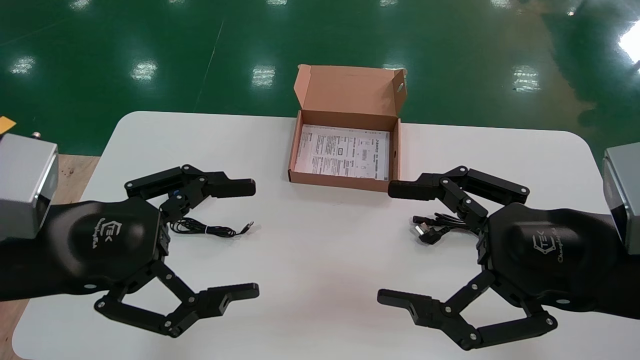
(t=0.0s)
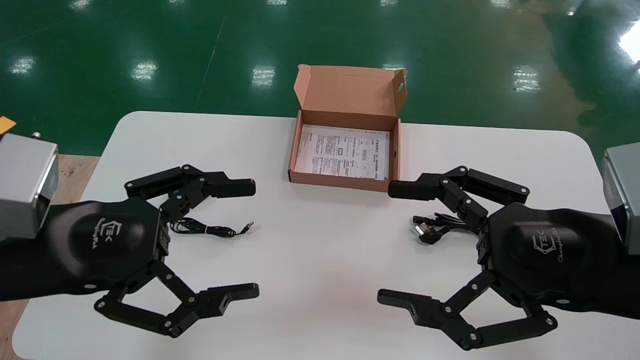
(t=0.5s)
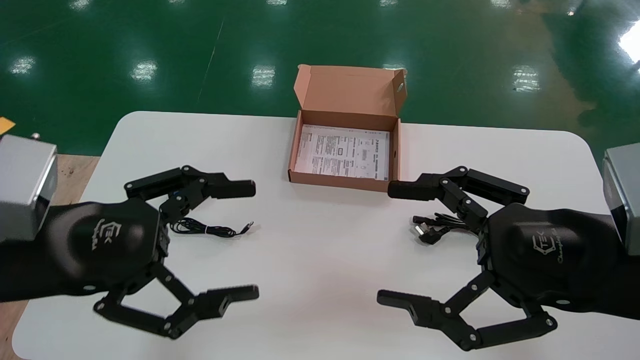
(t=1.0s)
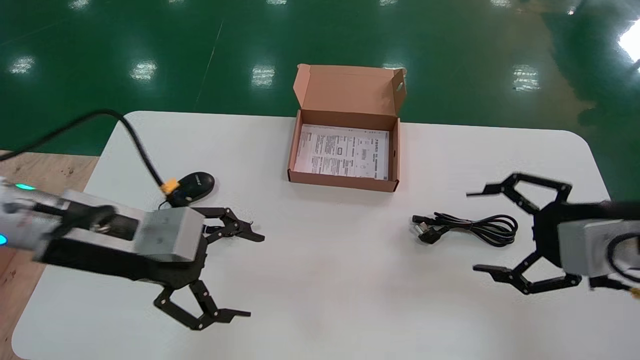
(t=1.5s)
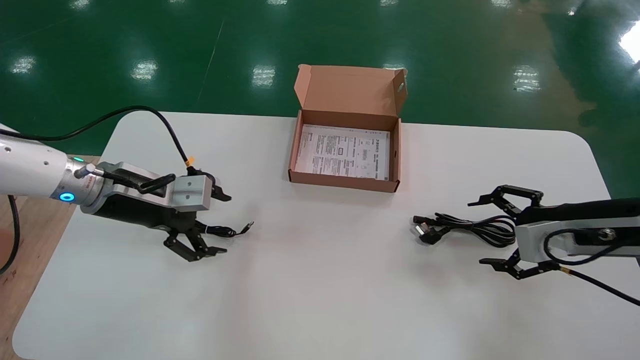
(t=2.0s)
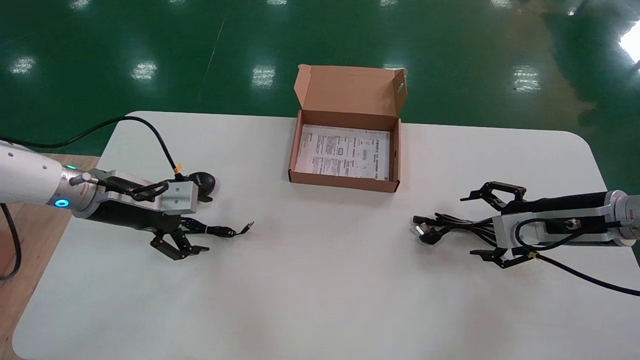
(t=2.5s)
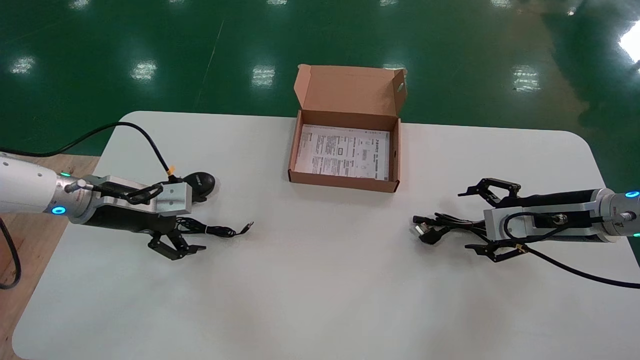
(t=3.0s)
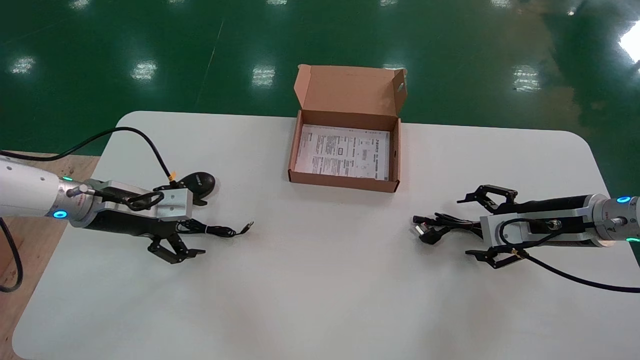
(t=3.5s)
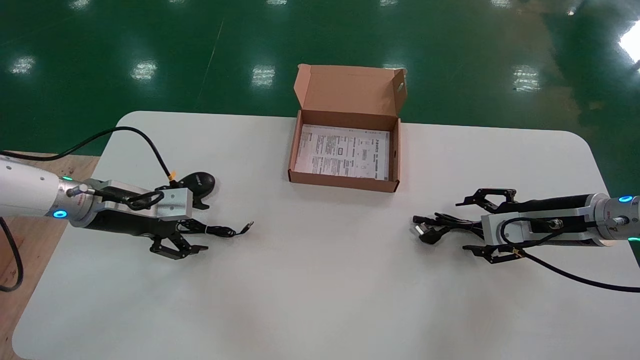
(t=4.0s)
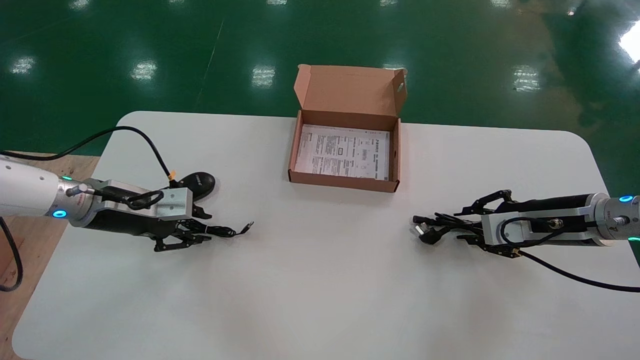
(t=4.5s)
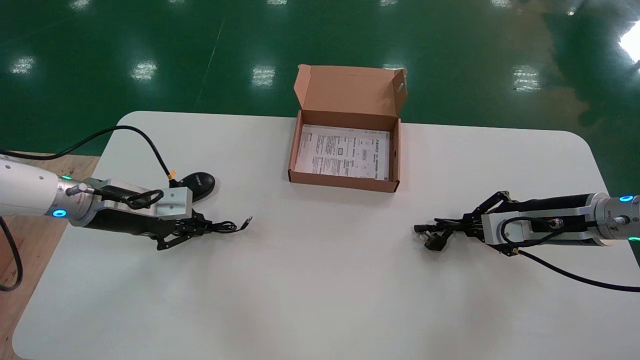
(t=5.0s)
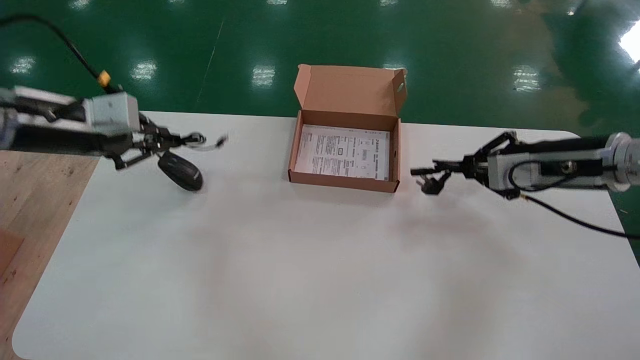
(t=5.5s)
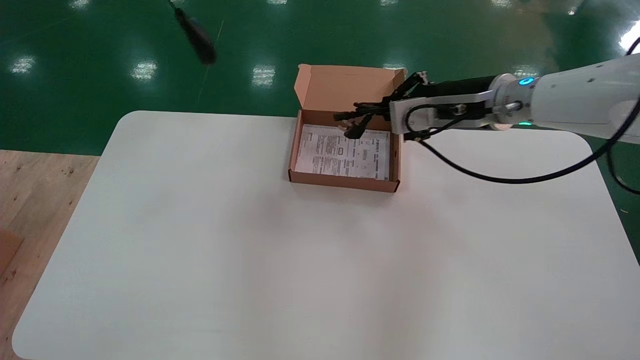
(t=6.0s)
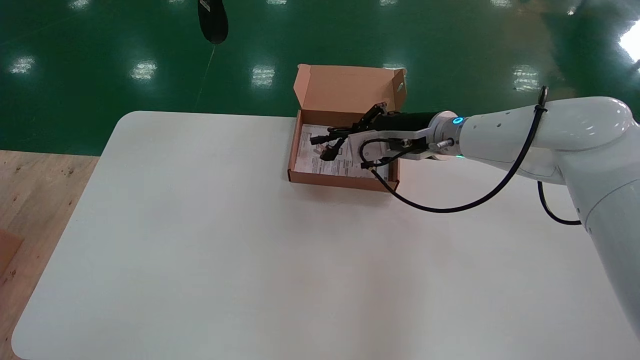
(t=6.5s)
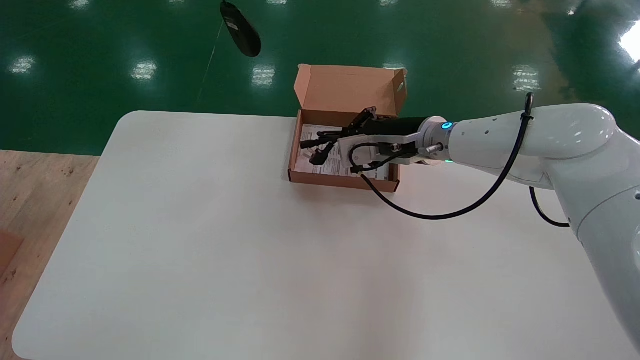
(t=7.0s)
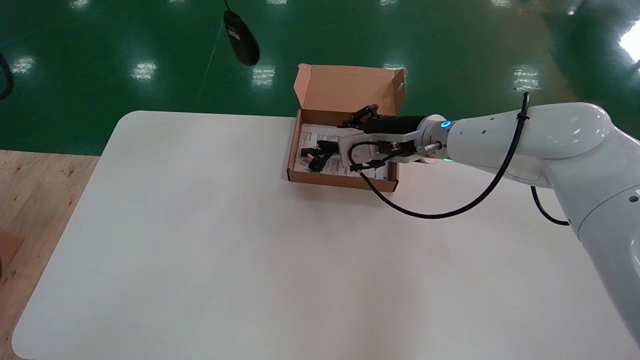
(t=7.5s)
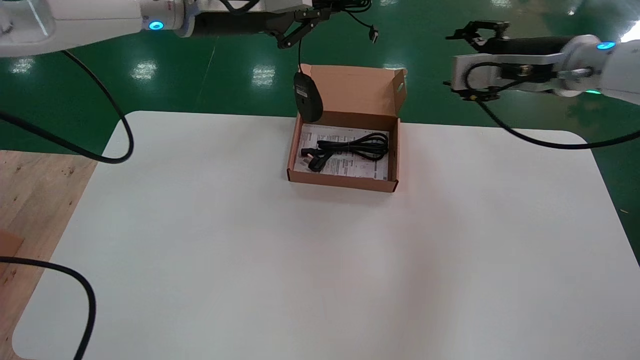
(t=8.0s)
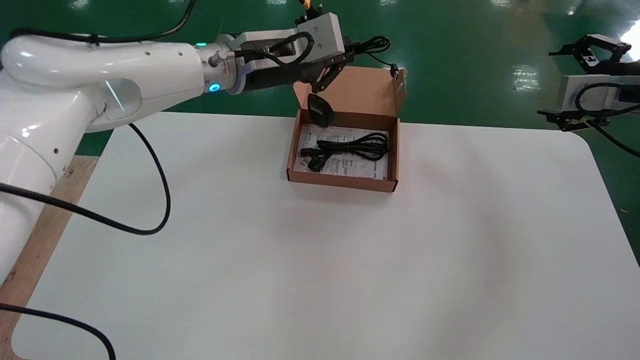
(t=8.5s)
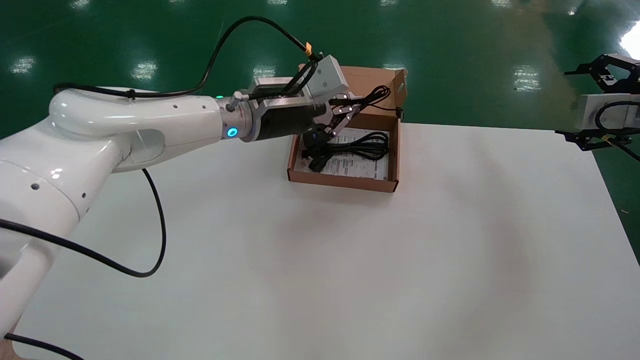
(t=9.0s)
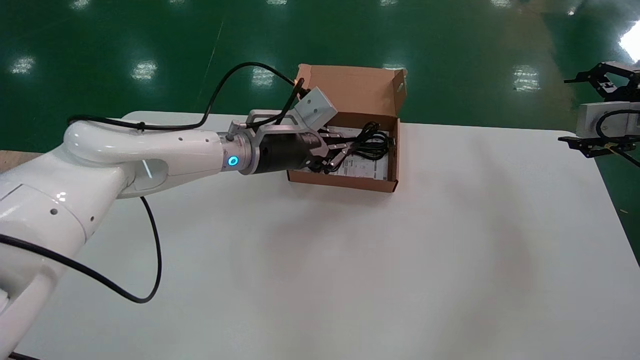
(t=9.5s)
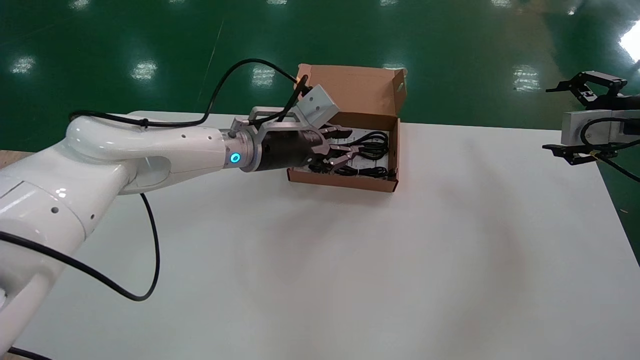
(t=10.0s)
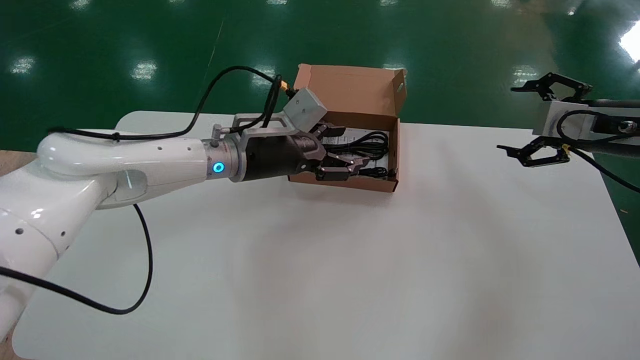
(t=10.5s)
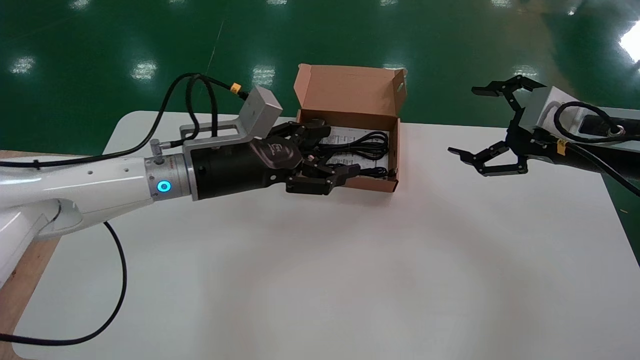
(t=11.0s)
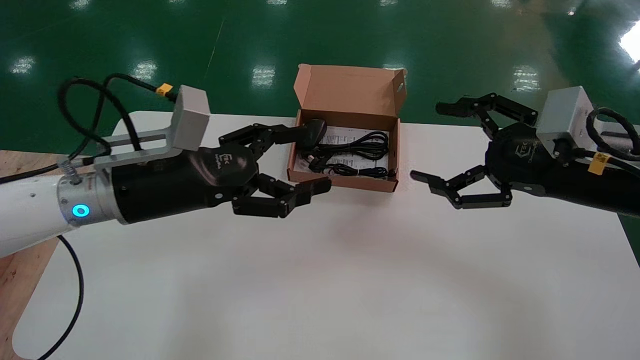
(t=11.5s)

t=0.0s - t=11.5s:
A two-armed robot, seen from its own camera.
Step, t=1.5s - t=5.0s: Simultaneously pick up the mouse and power cord from the accessory packaging area.
Step, t=5.5s - t=10.0s: Place the mouse and power cord into the box.
t=0.0s - t=2.0s: The right gripper moves forward and to the right, approximately 20 cm, while the left gripper travels forward by approximately 20 cm.
t=2.0s - t=4.0s: The right gripper moves forward, some 5 cm. The left gripper ends up about 5 cm from where it was.
t=4.0s - t=6.0s: The right gripper shifts roughly 20 cm to the left and upward, and closes. The left gripper moves upward, roughly 30 cm, and closes.
t=6.0s - t=7.5s: The right gripper is displaced to the left by approximately 5 cm, while the left gripper shifts about 10 cm to the right.
t=7.5s - t=9.5s: The right gripper heads to the right, covering approximately 30 cm, and opens; the left gripper shifts roughly 30 cm downward and to the right.
t=9.5s - t=11.5s: The right gripper heads to the left and backward, covering roughly 15 cm. Meanwhile the left gripper heads backward and to the left, covering some 20 cm, and opens.

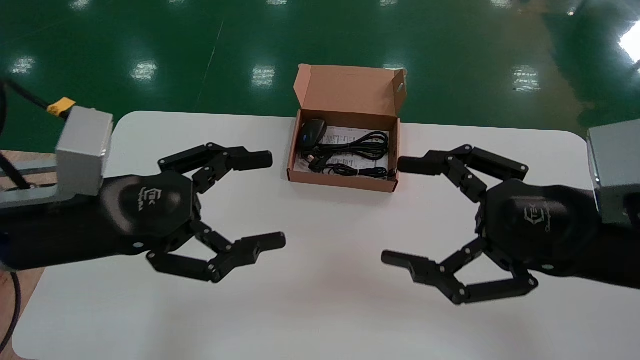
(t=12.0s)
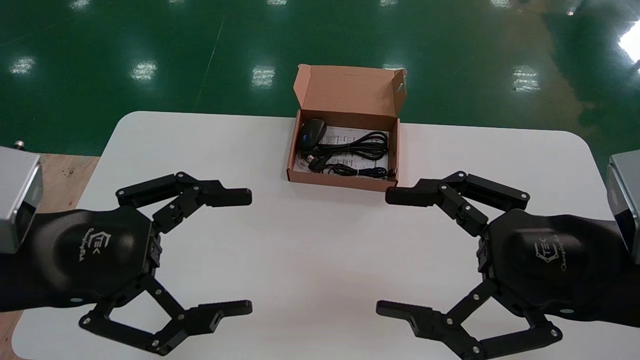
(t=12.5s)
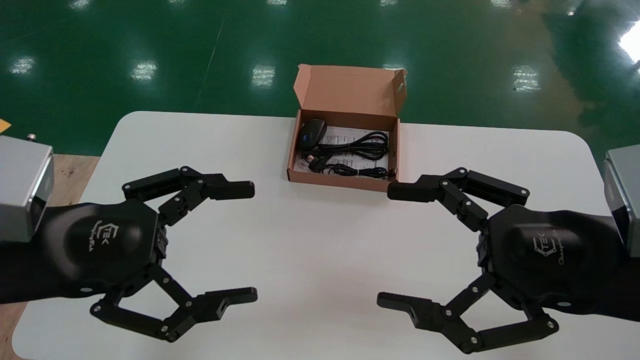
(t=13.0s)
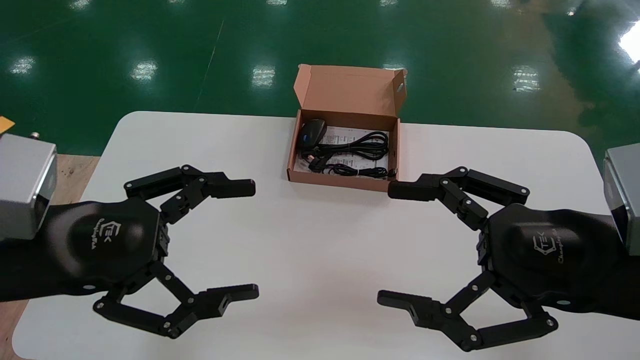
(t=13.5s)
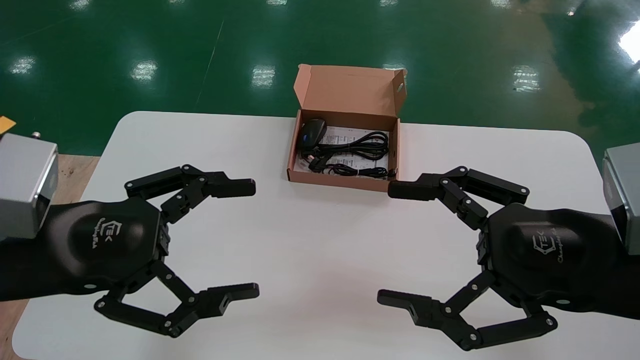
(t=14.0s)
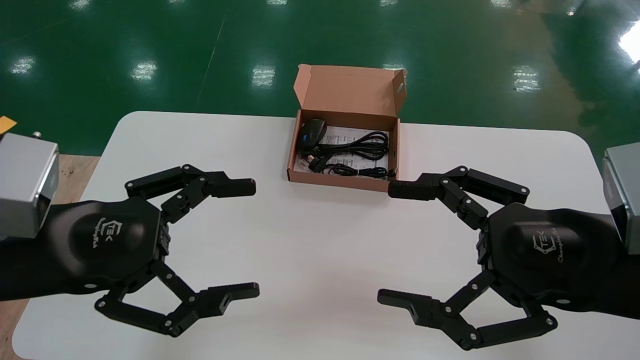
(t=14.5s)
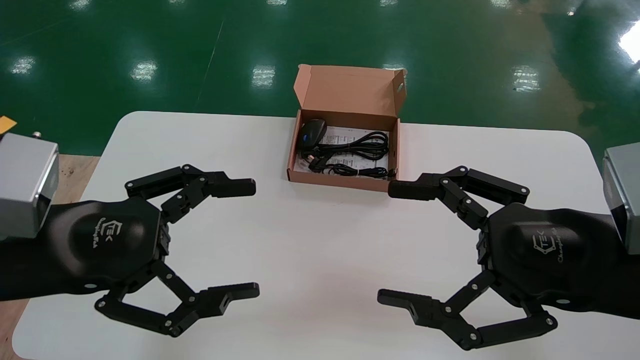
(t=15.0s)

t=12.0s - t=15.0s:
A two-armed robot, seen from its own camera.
t=13.5s - t=15.0s: The two grippers keep their place.
